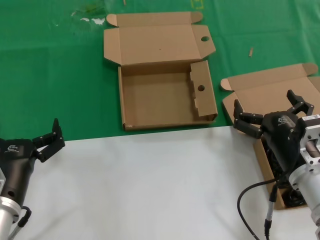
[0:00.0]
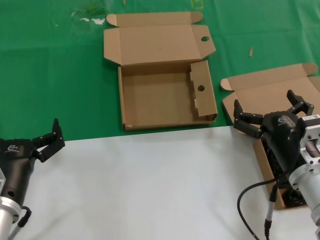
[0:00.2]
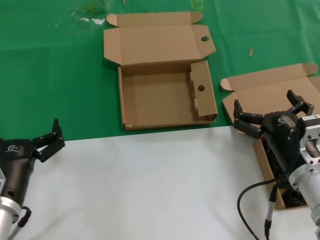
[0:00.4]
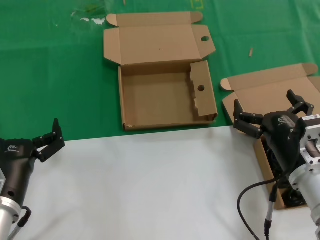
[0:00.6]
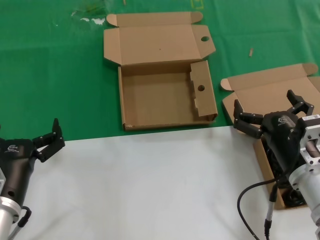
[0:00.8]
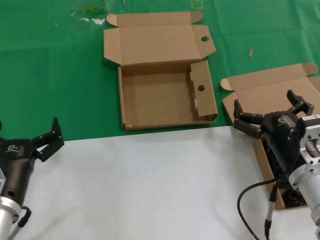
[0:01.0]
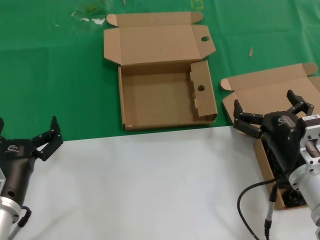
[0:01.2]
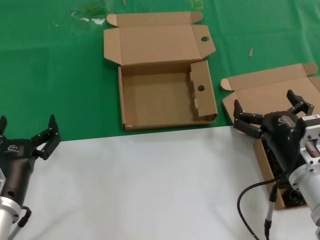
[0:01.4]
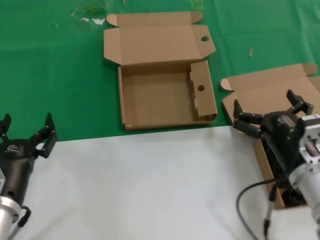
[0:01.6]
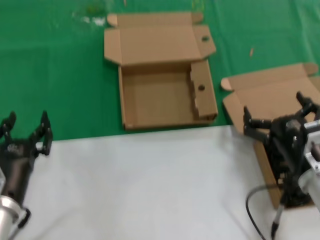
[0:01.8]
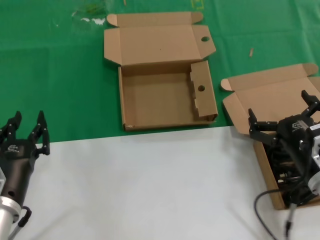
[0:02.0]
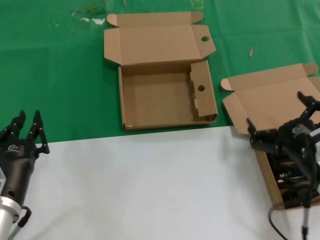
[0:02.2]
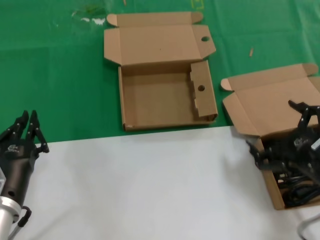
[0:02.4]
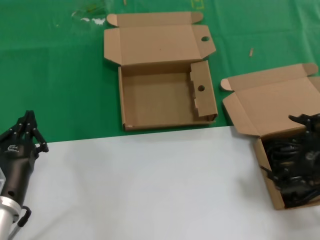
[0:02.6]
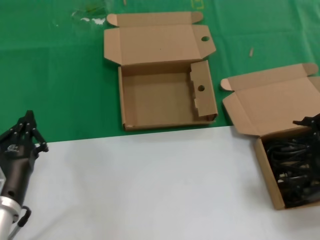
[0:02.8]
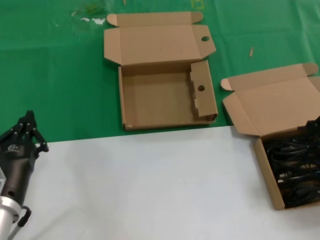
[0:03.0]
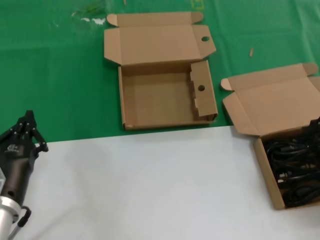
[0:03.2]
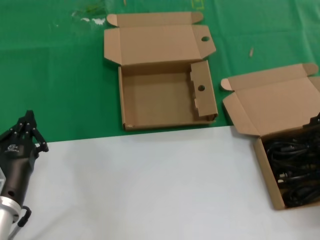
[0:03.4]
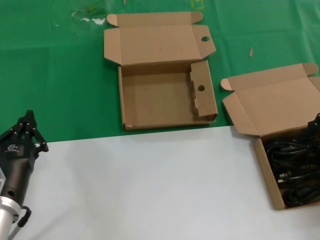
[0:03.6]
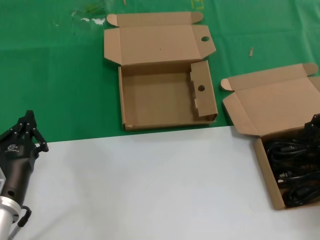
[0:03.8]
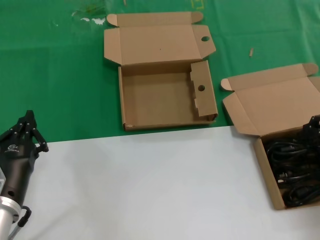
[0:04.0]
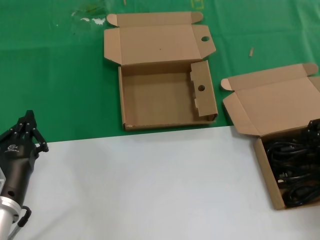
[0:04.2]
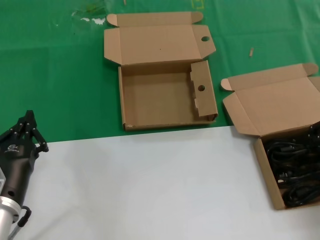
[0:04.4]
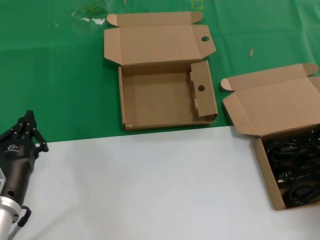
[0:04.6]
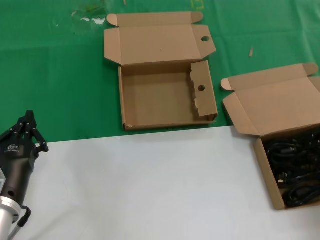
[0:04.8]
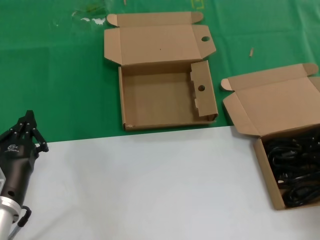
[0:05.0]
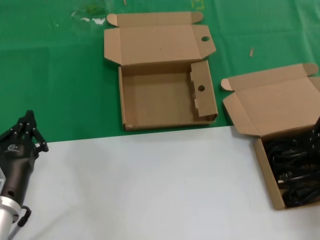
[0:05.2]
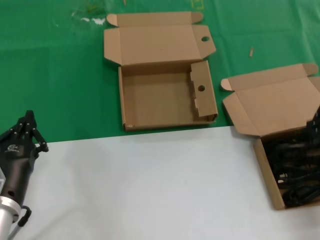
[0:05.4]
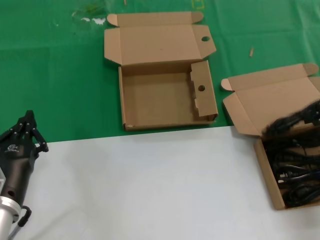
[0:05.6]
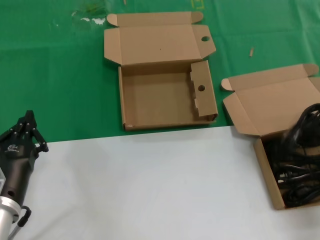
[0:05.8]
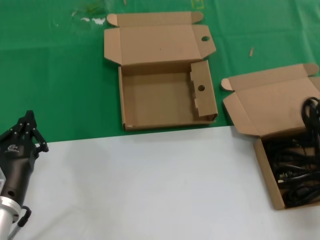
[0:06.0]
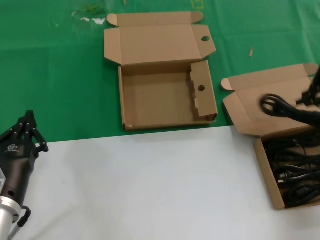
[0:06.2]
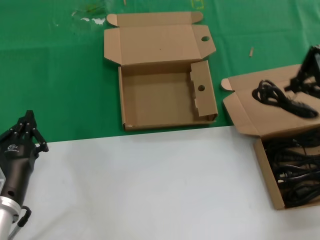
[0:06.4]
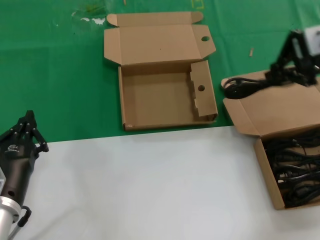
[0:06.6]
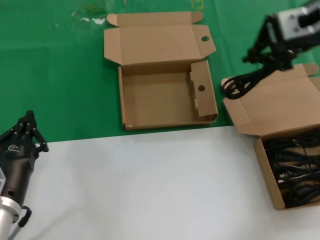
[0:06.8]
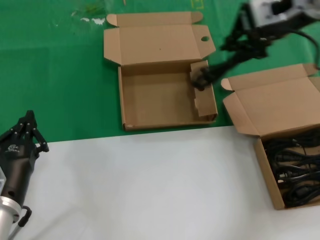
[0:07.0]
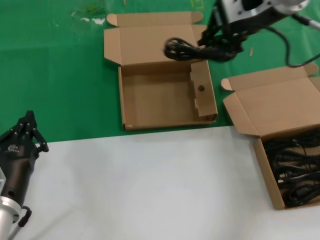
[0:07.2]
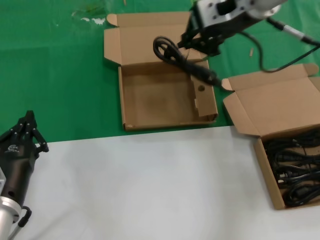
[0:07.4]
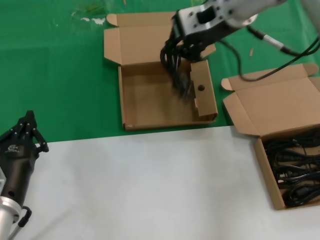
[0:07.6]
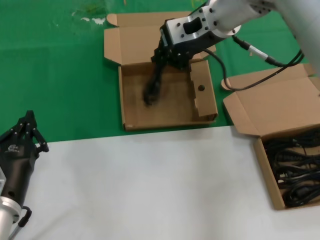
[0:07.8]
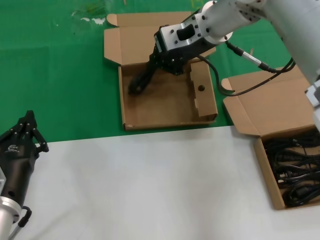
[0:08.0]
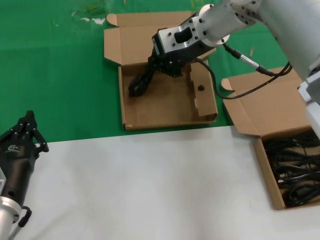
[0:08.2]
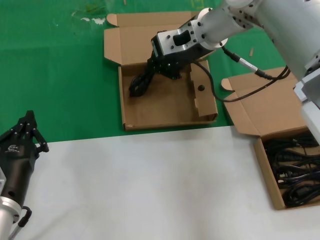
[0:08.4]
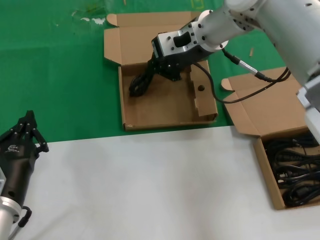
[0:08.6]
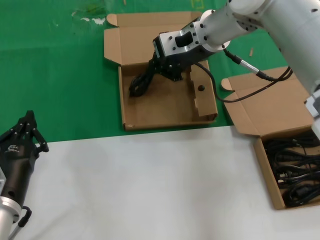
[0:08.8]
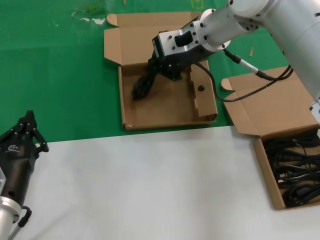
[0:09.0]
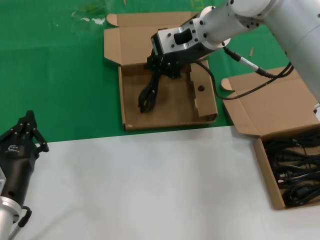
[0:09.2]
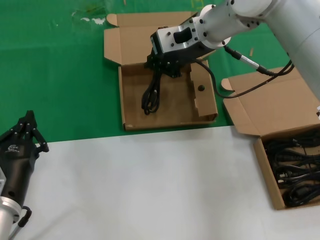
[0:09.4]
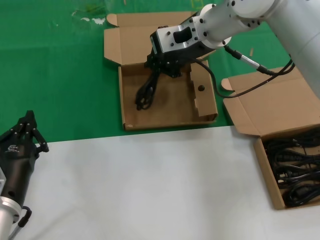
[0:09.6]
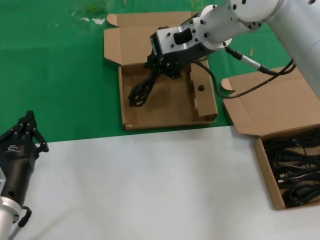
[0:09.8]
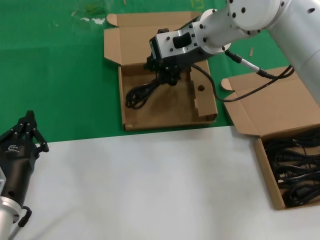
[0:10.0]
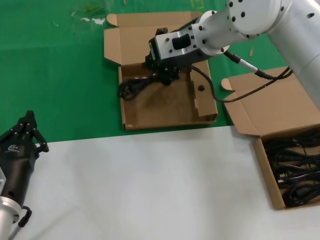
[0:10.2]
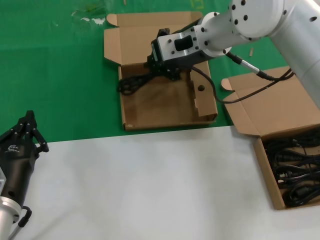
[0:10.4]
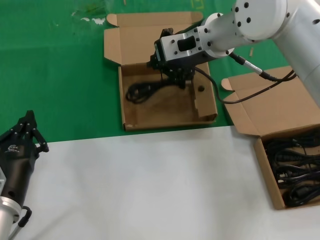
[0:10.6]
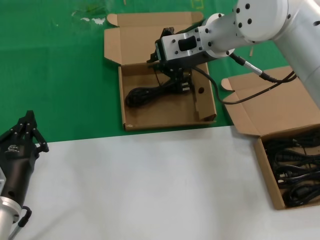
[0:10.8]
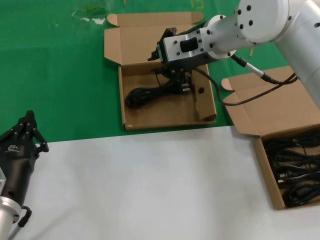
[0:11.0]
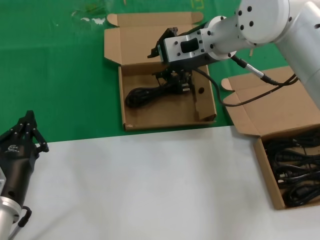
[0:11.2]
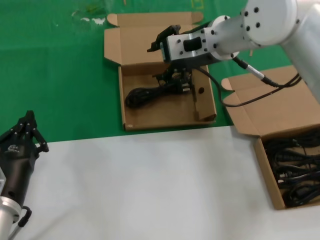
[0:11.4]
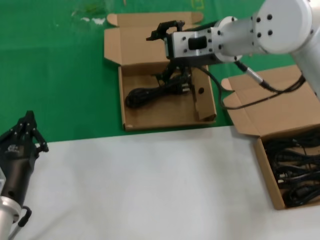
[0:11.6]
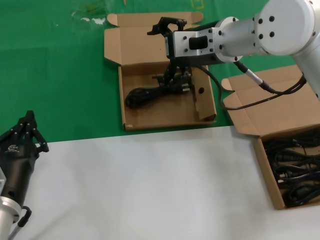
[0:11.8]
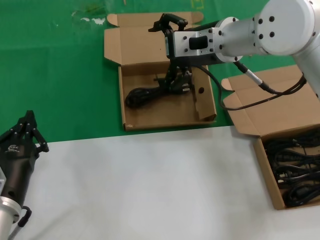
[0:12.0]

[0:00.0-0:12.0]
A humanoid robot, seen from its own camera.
Task of the whole recording: take the parts from the box containing them and put them into an empty box.
Step, 0:00.0 to 0:04.8: Grasp the data cable.
Step, 0:05.2 to 0:11.0: Place the data cable in the another box.
0:00.0 to 0:01.6: The two hands keep their place.
0:01.6 to 0:03.0: The right hand heads to the right and upward, covering some 20 cm.
0:03.0 to 0:04.4: The right hand moves forward, some 10 cm.
0:04.4 to 0:06.0: The right hand moves upward, about 10 cm.
0:06.0 to 0:07.6: The right hand shifts some 25 cm to the left and forward.
0:07.6 to 0:09.0: The right hand heads downward, covering approximately 5 cm.
0:09.0 to 0:12.0: The hands make only small movements.

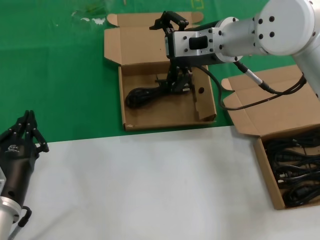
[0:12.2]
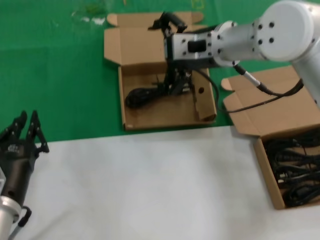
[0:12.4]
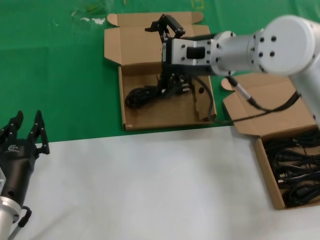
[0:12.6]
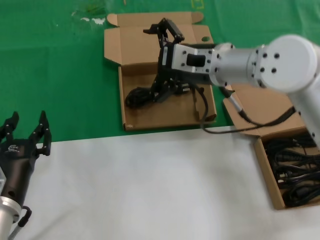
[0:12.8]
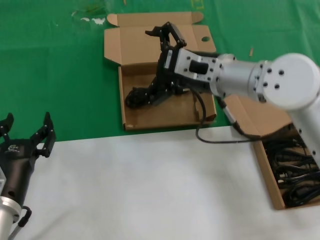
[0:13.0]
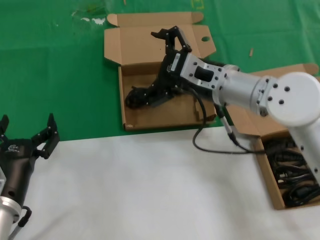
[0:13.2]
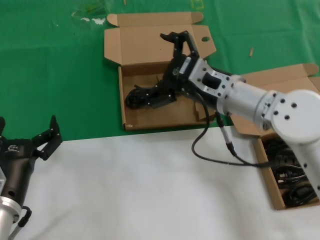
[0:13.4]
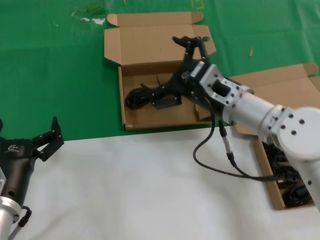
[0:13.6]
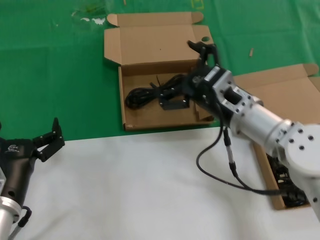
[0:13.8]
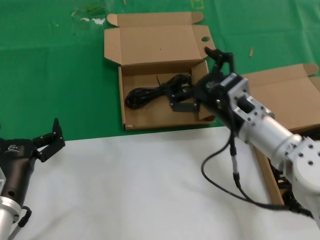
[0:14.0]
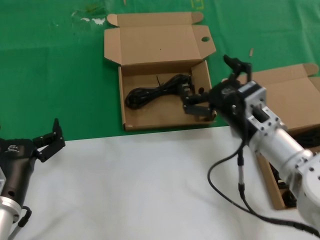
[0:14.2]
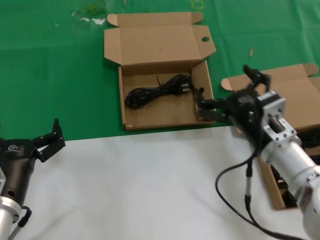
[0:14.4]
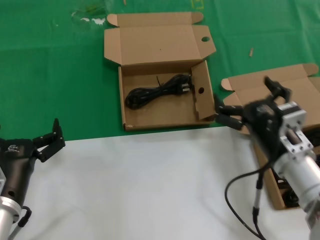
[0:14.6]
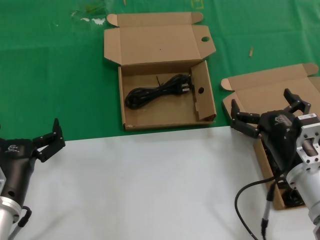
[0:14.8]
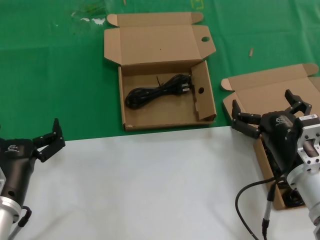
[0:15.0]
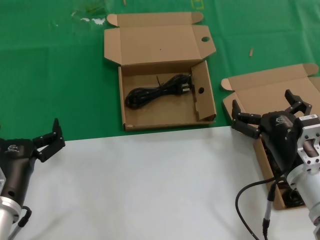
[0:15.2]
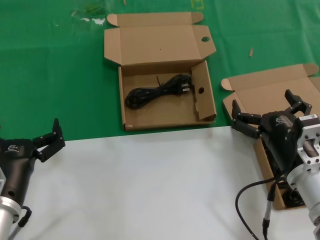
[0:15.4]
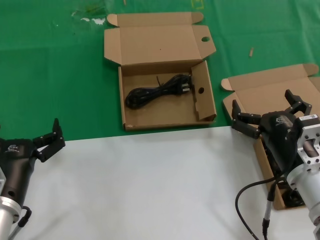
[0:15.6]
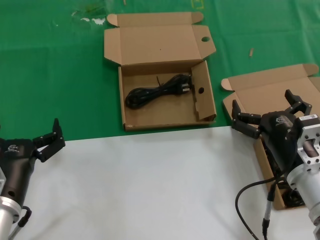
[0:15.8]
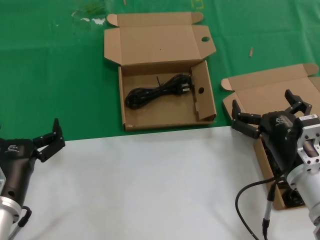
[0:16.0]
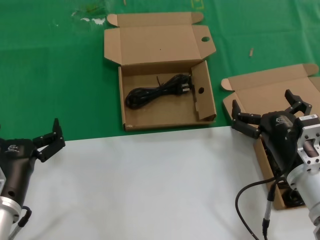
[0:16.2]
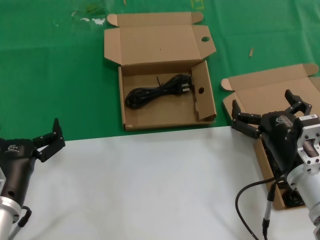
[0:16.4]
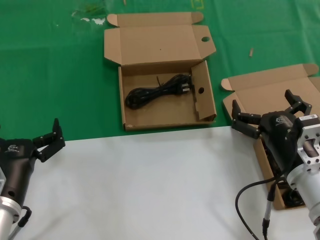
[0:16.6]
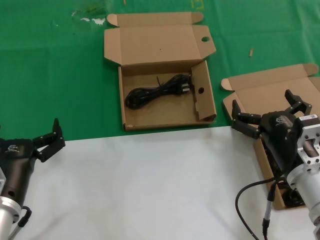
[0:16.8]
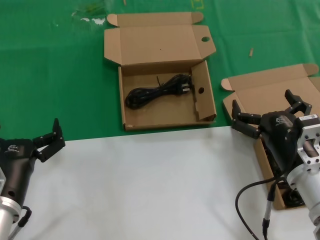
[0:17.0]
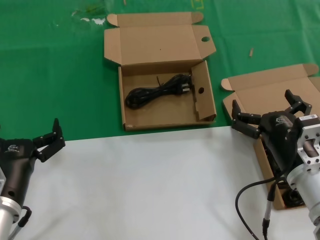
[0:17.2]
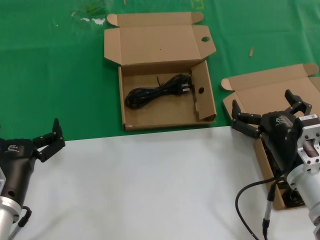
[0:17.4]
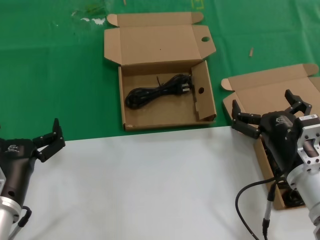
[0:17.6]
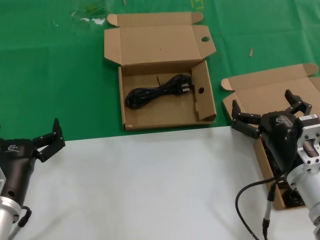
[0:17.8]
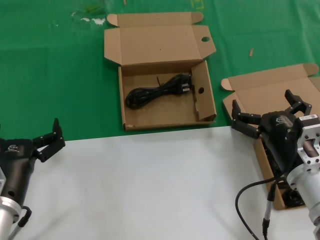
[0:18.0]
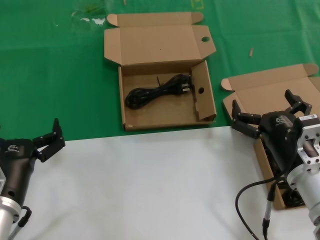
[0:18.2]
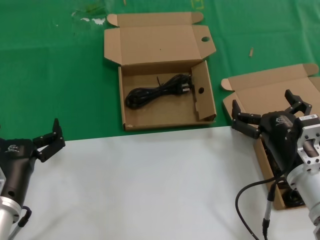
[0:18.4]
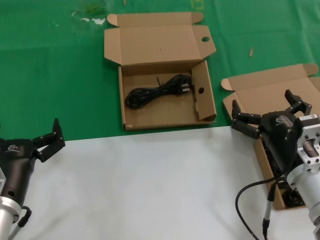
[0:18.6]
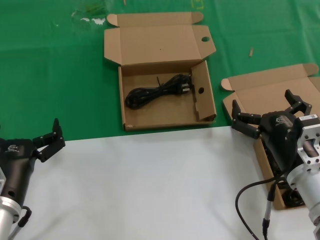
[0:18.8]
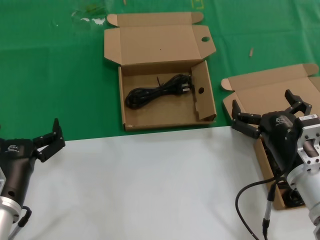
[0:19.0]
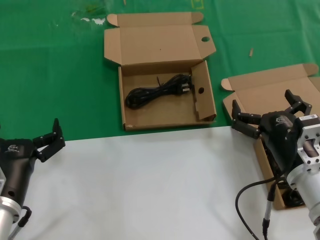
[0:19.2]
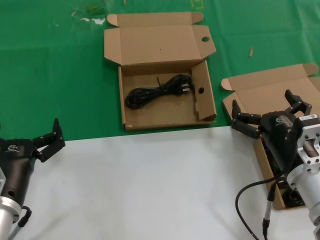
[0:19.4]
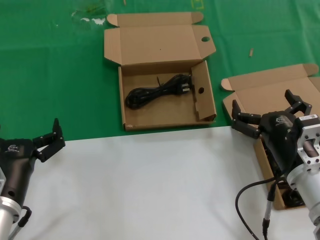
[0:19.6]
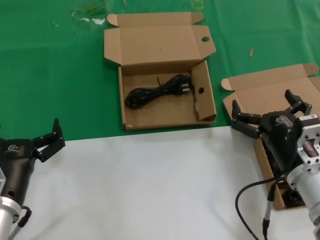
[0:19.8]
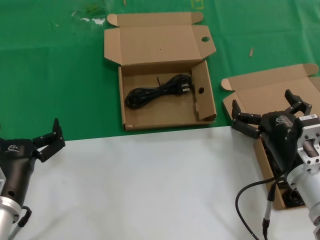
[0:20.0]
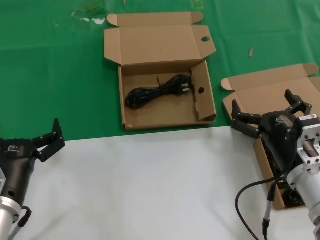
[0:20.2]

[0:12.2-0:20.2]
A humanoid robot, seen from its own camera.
Task of the whole recording: take the parts from the box containing them and put them into an empty box.
0:12.2 to 0:13.8: The right hand travels downward and backward by roughly 15 cm.
0:13.8 to 0:15.4: The right hand heads backward, downward and to the right, covering approximately 15 cm.
0:15.4 to 0:20.2: Both hands stay about where they are.

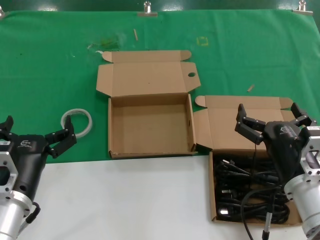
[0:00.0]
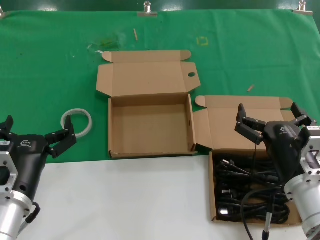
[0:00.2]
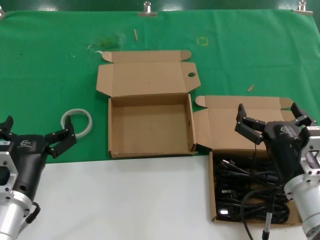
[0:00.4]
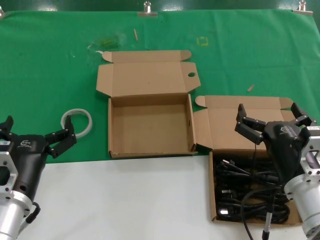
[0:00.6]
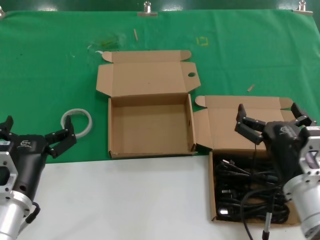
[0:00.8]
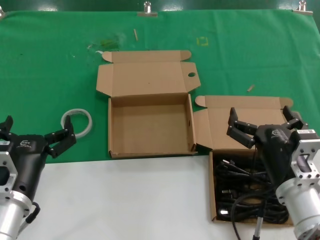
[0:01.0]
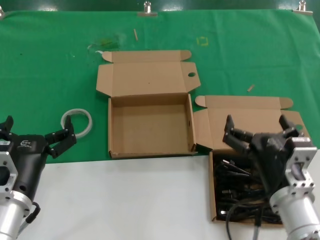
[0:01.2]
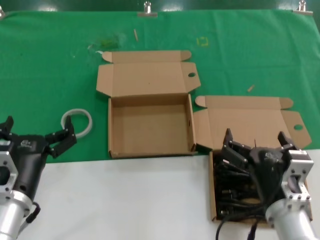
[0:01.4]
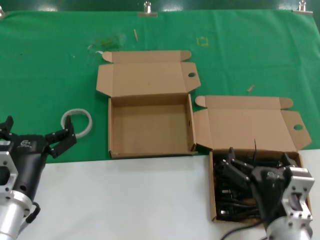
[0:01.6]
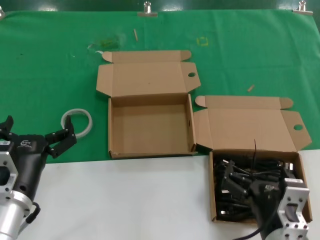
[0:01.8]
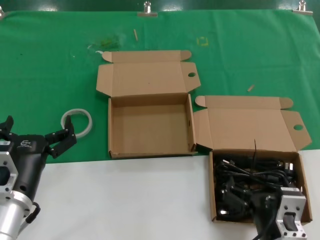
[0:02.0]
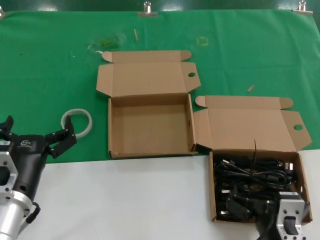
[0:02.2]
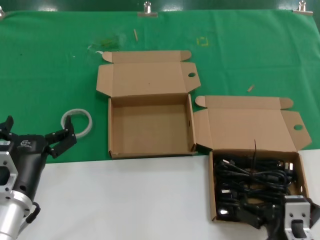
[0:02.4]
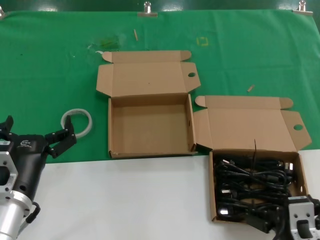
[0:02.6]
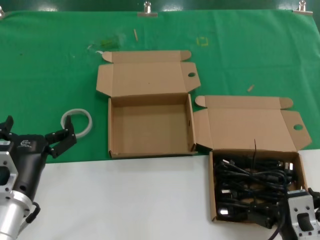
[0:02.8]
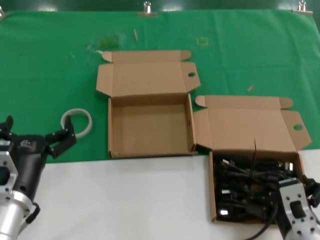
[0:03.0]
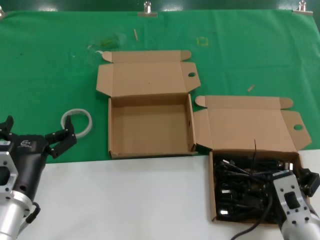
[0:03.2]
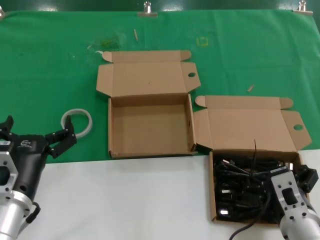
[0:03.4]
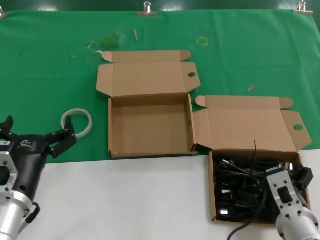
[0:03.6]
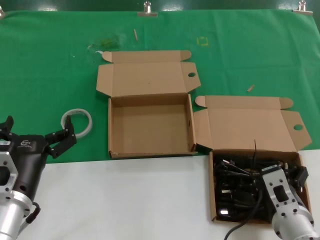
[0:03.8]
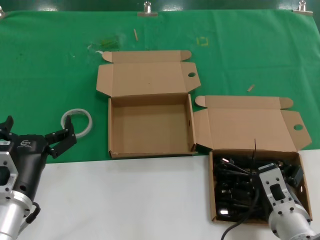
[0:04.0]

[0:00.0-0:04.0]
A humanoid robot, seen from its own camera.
Task of the whole recording: take the parts from the box containing them and put them into an empty box.
0:00.0 to 0:01.4: The right hand shifts by roughly 5 cm.
0:01.4 to 0:02.6: The right hand is displaced backward by about 5 cm.
0:02.6 to 0:04.0: The right hand shifts roughly 10 cm forward.
